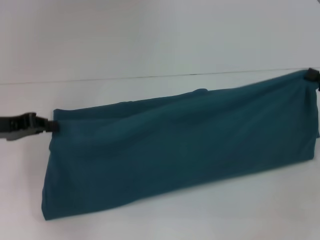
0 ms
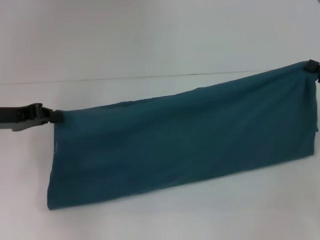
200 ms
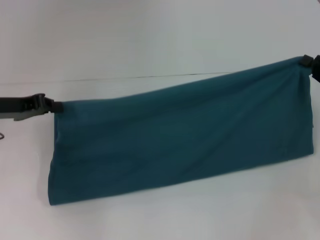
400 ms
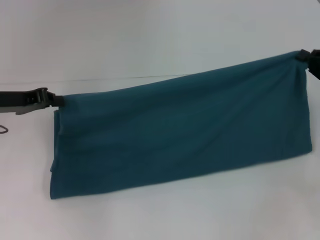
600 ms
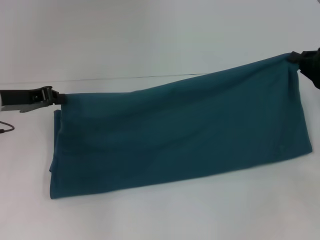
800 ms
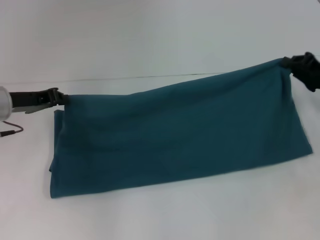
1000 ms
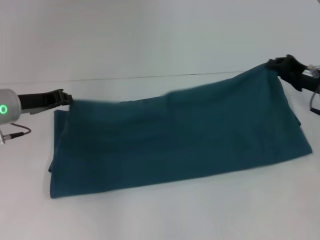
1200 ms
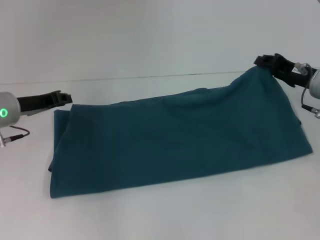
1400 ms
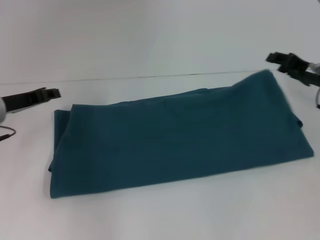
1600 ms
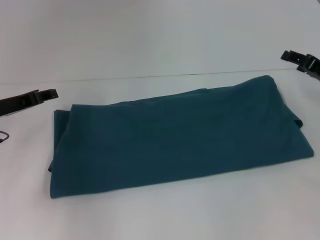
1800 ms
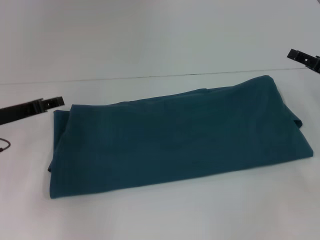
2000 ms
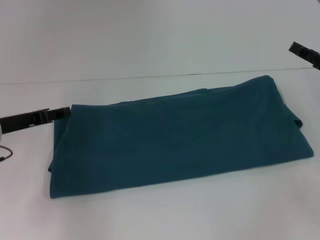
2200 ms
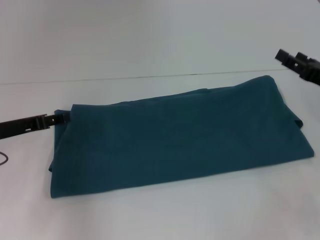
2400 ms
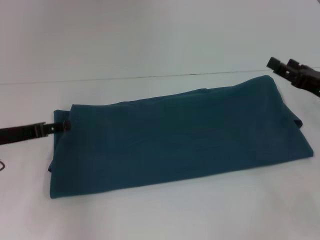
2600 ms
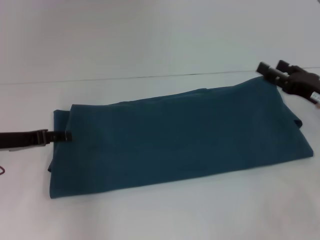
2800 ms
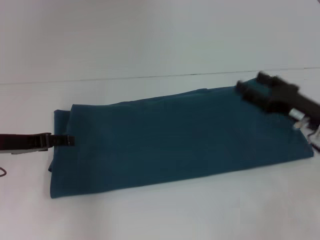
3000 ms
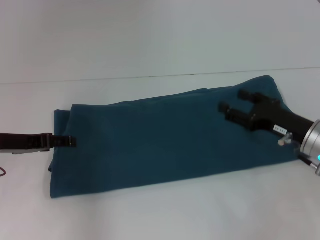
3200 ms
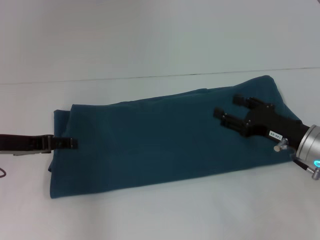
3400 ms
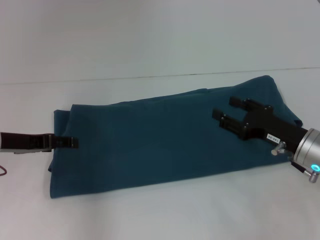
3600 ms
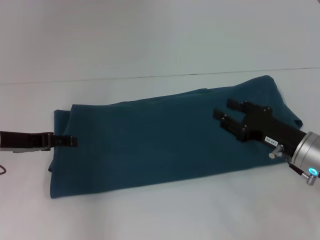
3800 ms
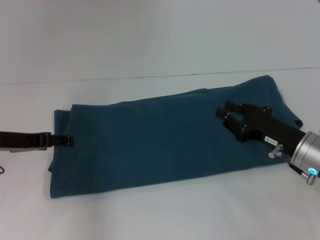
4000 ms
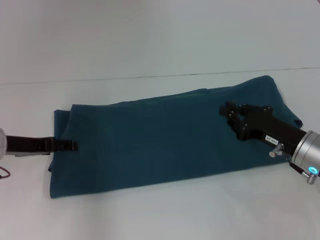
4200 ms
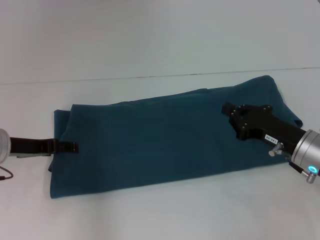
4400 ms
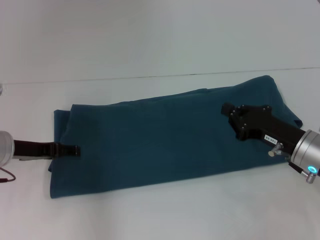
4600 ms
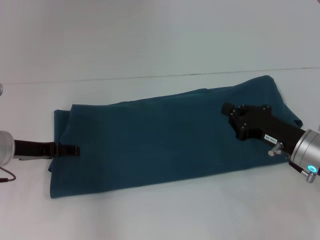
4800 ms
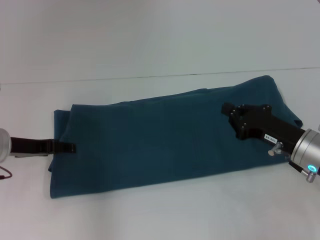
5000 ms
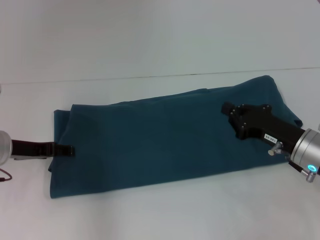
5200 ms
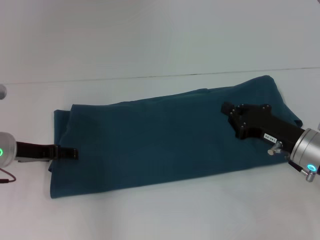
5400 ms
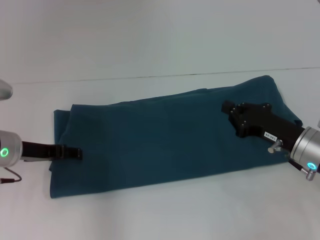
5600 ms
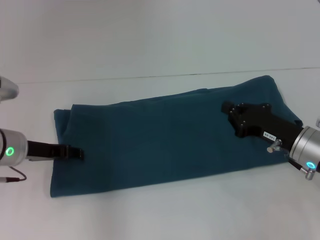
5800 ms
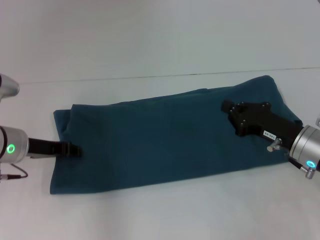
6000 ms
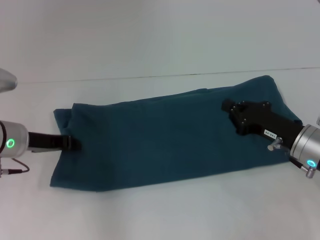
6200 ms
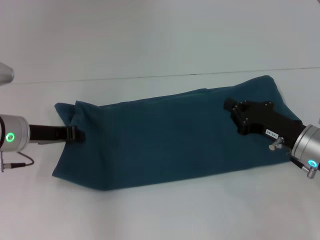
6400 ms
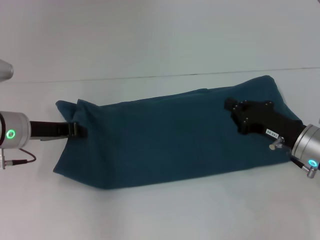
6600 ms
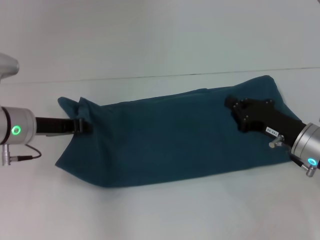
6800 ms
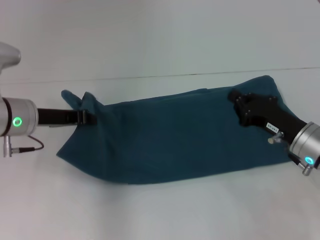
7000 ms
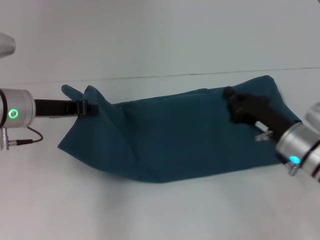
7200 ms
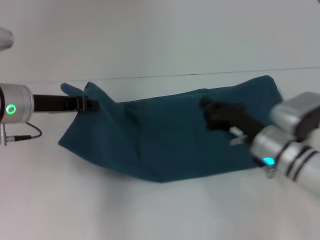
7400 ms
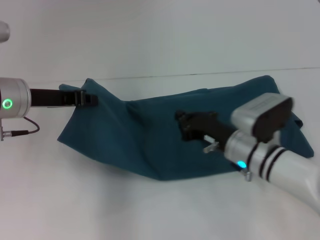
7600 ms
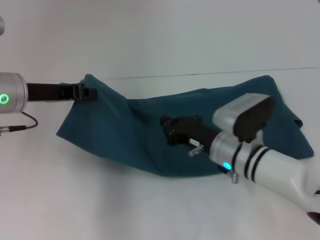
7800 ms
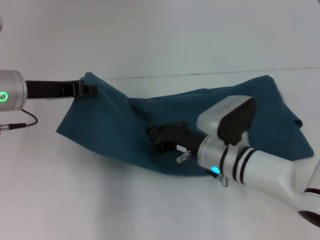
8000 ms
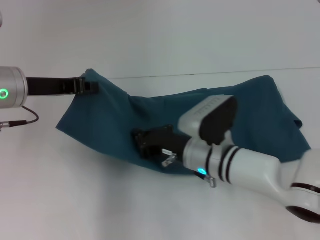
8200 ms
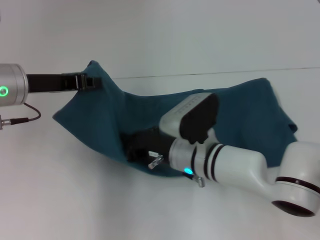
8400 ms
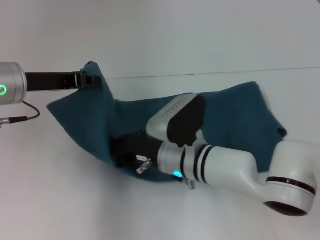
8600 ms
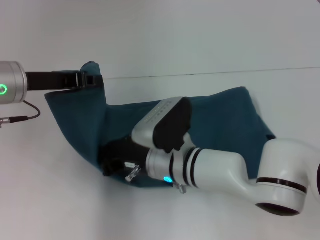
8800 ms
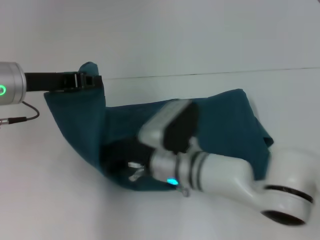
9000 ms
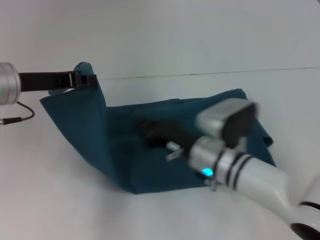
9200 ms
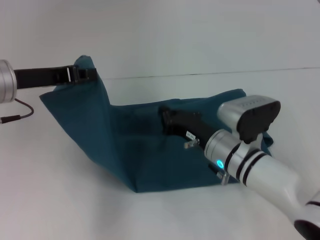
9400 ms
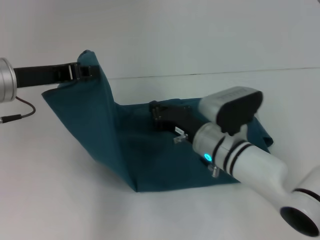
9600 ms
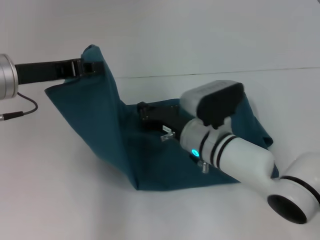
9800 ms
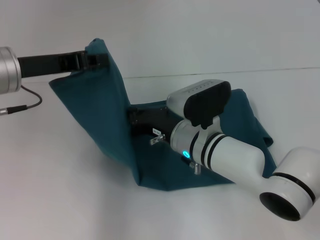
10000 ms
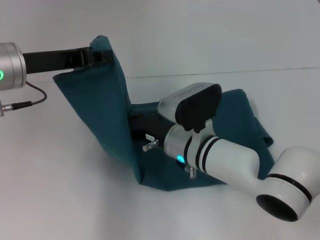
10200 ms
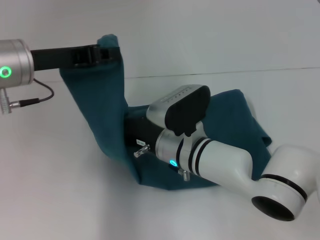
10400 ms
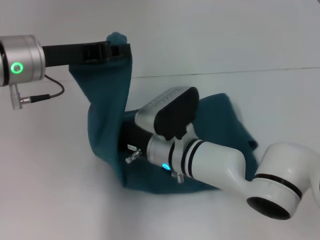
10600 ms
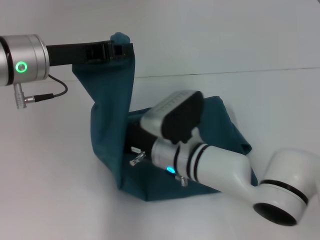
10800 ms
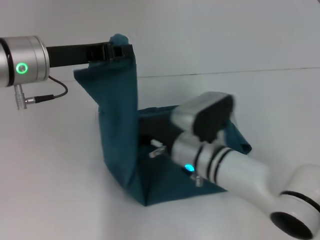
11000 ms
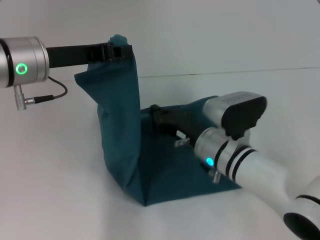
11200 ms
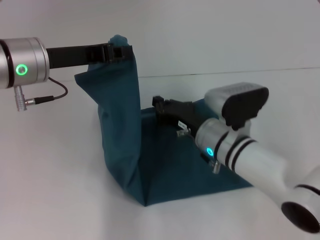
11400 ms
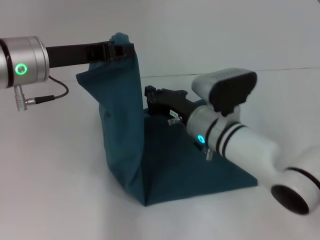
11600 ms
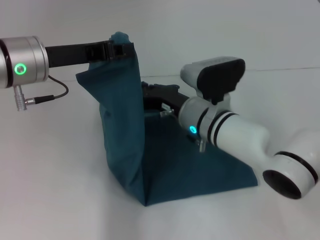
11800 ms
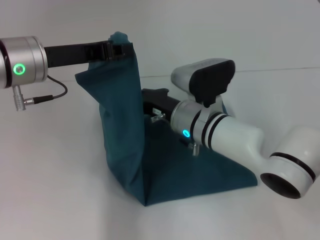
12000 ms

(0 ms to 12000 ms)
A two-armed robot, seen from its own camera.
0 ms - 1600 ms: The left gripper moves roughly 5 cm, while the right gripper heads forward and to the left, covering roughly 10 cm.
1600 ms - 3000 ms: The right gripper is displaced backward by about 10 cm, and opens its fingers, while the left gripper opens.
3000 ms - 4400 ms: The right gripper closes.
4400 ms - 6000 ms: The grippers move only a little.
6000 ms - 7600 ms: The right gripper heads to the left, covering about 10 cm. Meanwhile the left gripper moves upward, some 10 cm, and closes its fingers.
7600 ms - 9000 ms: The right gripper travels to the left by approximately 10 cm.

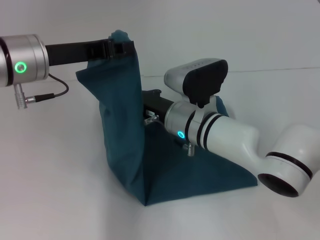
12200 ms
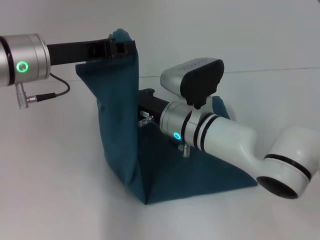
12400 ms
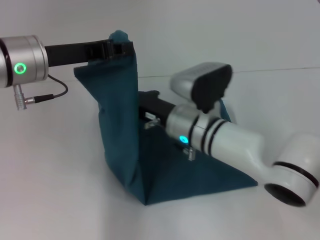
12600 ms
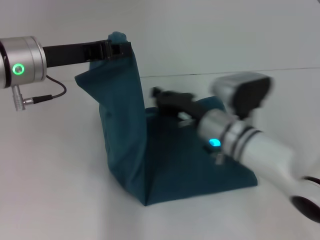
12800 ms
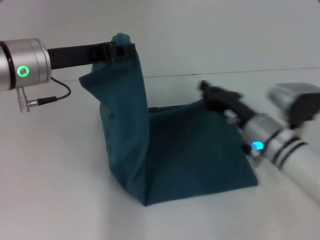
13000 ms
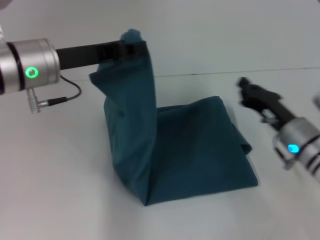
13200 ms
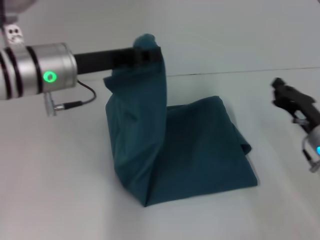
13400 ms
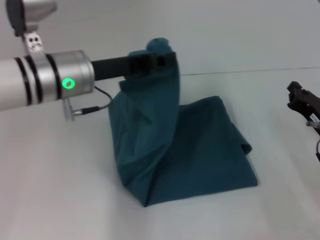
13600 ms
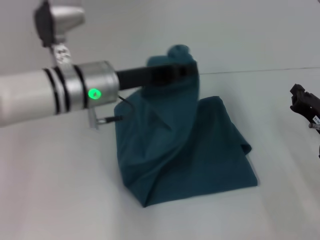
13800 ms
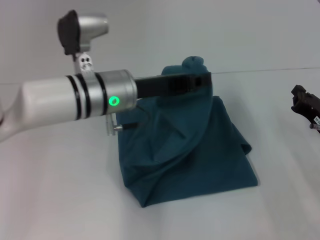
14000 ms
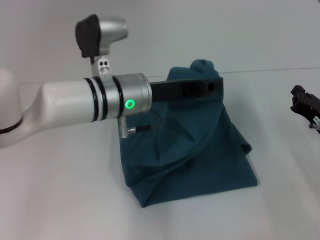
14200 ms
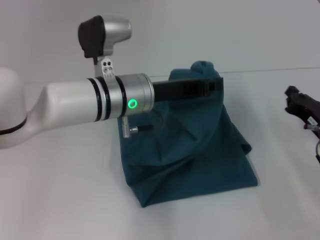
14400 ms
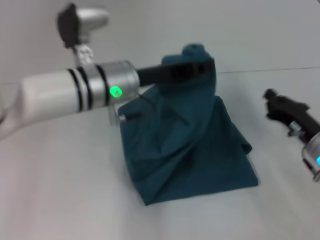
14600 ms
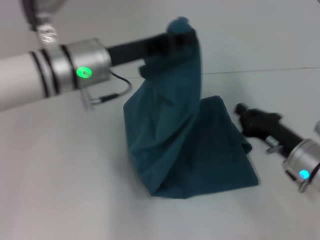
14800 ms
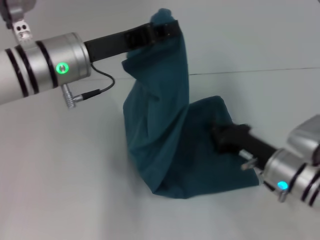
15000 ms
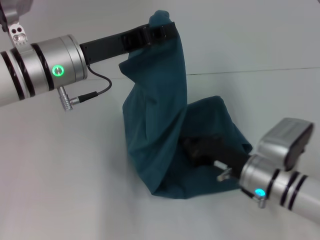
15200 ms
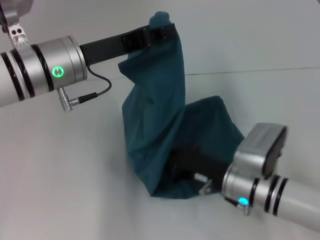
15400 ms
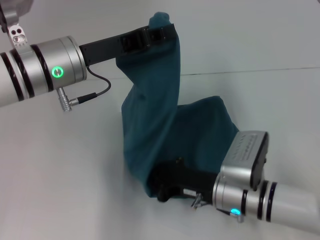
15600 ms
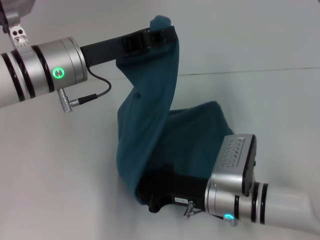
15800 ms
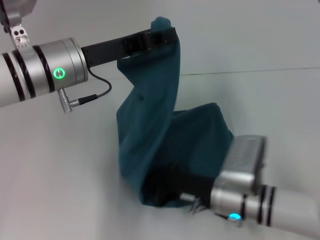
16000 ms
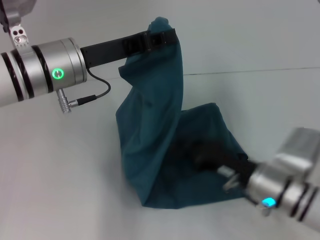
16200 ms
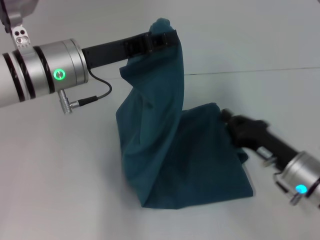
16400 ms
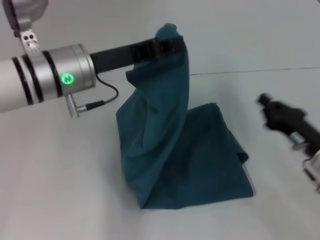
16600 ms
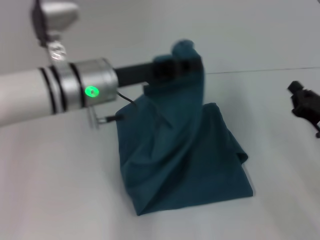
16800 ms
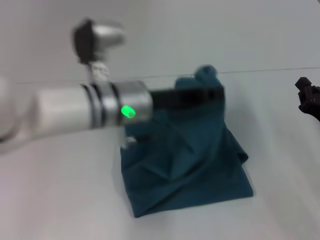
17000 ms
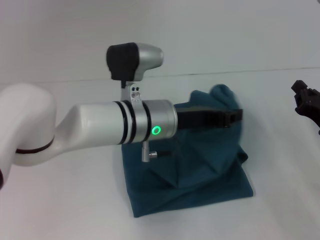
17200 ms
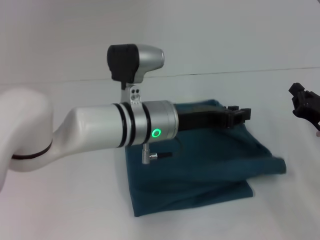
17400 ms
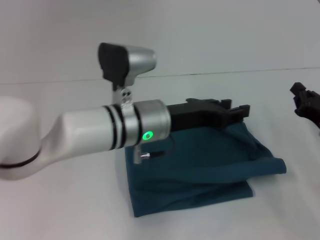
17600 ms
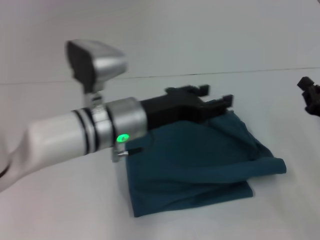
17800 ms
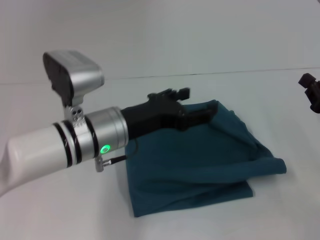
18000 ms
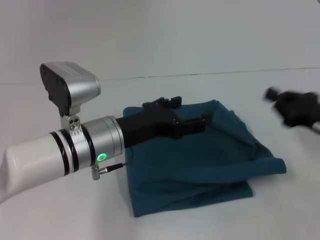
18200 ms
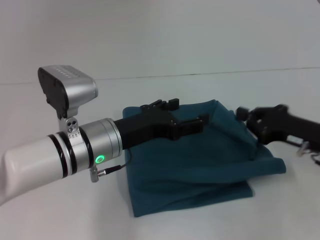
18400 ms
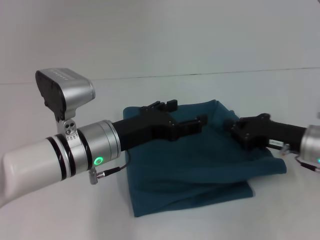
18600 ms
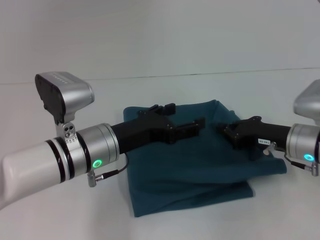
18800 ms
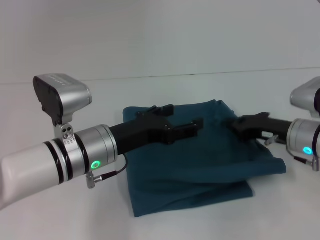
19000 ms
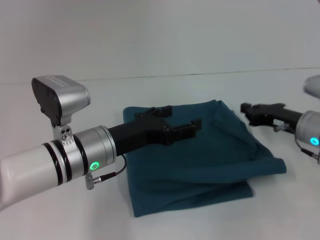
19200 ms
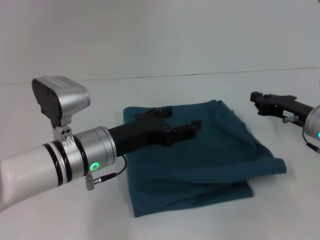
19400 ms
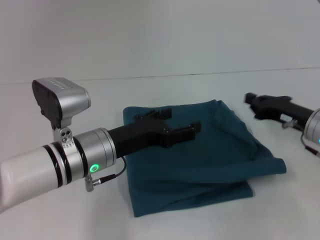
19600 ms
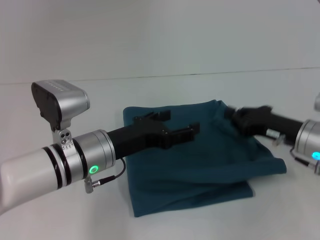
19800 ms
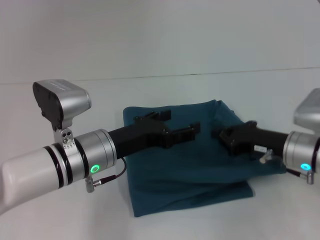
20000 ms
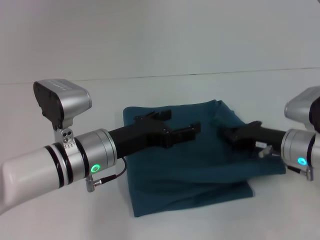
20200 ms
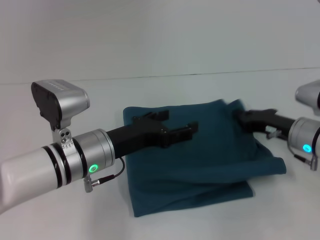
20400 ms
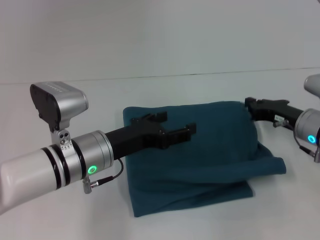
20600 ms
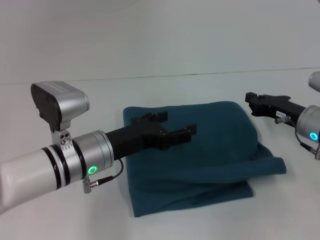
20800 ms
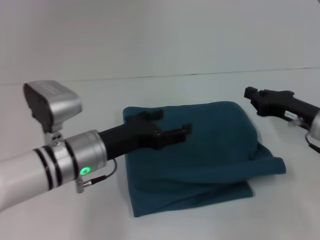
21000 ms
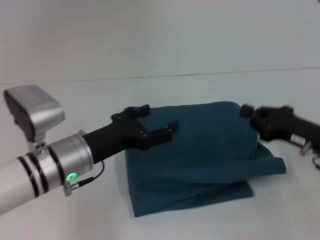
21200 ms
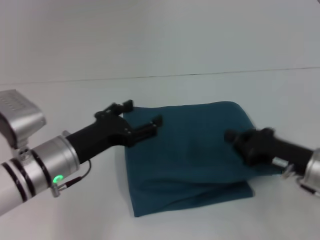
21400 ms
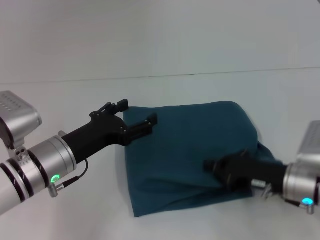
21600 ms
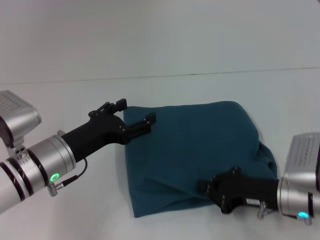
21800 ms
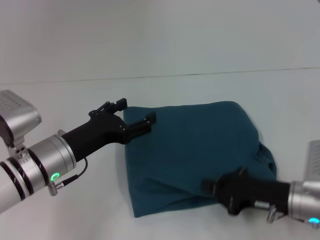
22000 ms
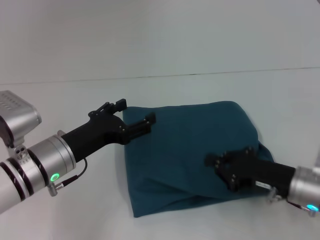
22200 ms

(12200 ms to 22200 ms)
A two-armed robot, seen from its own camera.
Step, 12200 ms - 15800 ms: Press the middle of the clothes with your right hand.
Step, 16000 ms - 17400 ms: Fold the clothes to the left.
12200 ms - 13600 ms: The left gripper travels to the right by some 5 cm. The right gripper is displaced to the right by approximately 25 cm.
13600 ms - 15000 ms: The right gripper is displaced to the left by roughly 10 cm, while the left gripper travels to the right and back again, some 5 cm each way.
15000 ms - 16400 ms: The right gripper reaches some 10 cm to the left, then returns.
16400 ms - 18000 ms: The left gripper moves downward, roughly 5 cm, and opens its fingers. The right gripper shifts some 10 cm to the right.
18000 ms - 19400 ms: The right gripper is displaced forward and to the left by roughly 10 cm.
20800 ms - 22200 ms: The left gripper goes about 5 cm to the left; the right gripper travels backward by roughly 10 cm.
